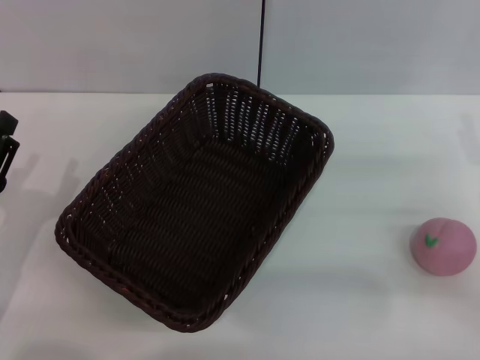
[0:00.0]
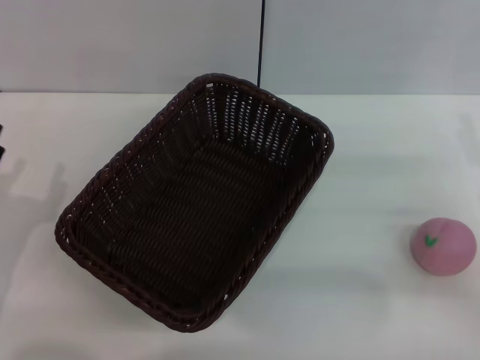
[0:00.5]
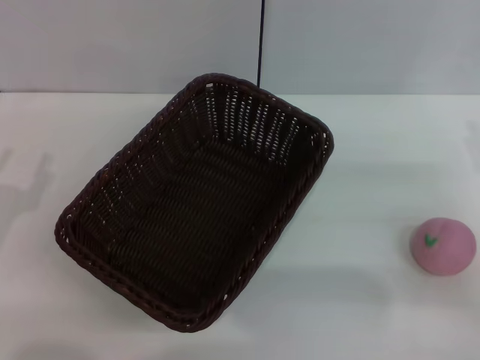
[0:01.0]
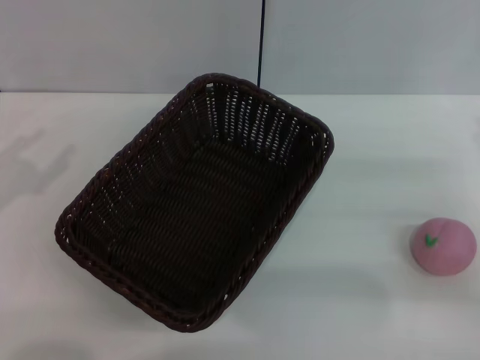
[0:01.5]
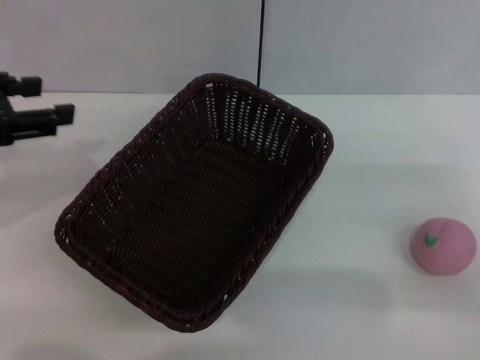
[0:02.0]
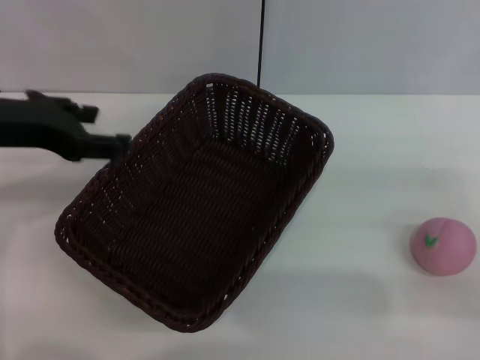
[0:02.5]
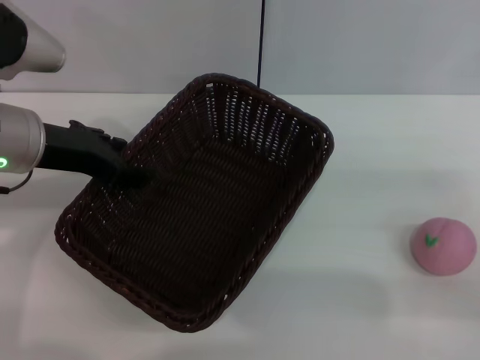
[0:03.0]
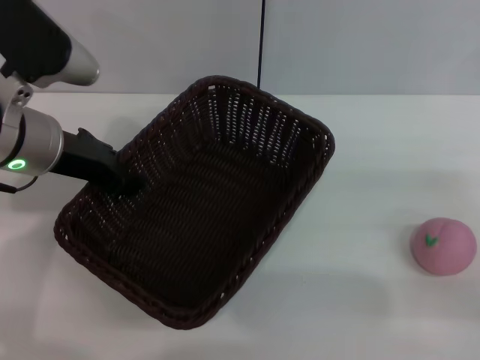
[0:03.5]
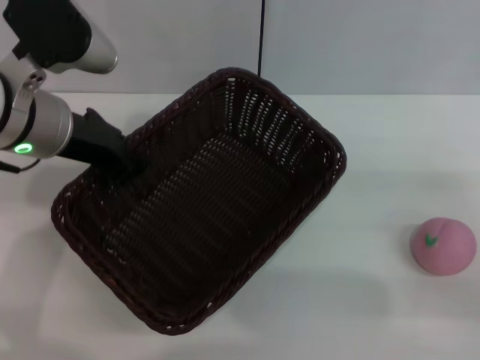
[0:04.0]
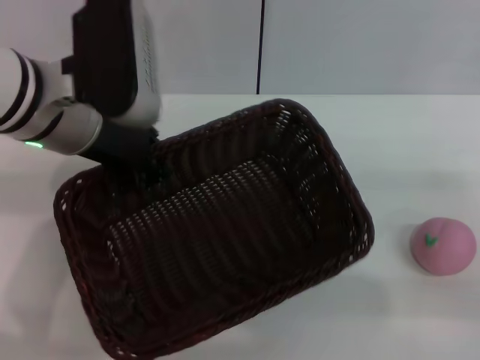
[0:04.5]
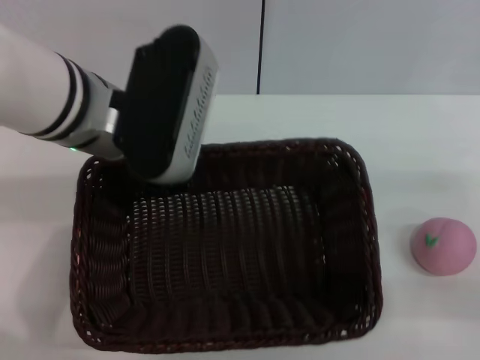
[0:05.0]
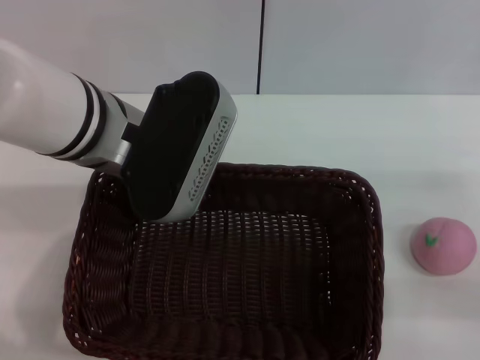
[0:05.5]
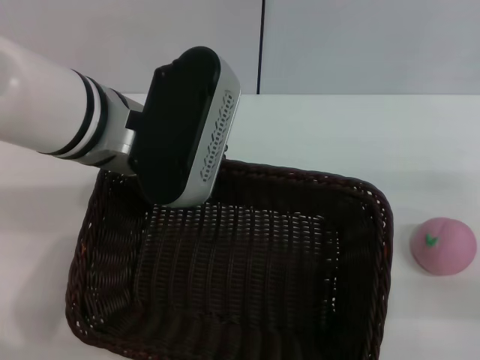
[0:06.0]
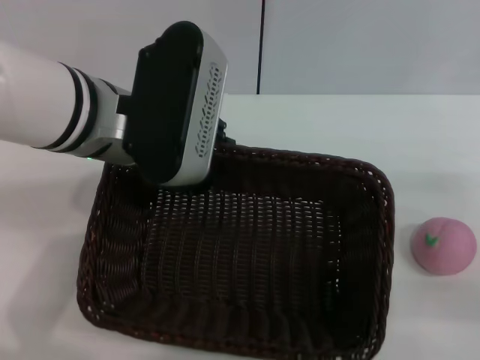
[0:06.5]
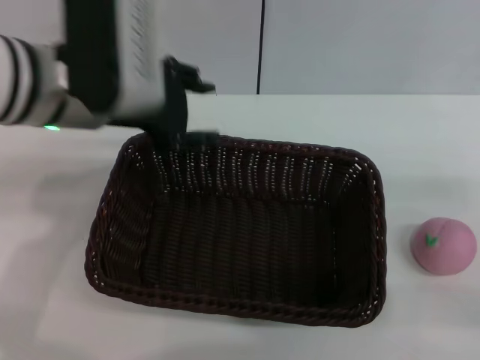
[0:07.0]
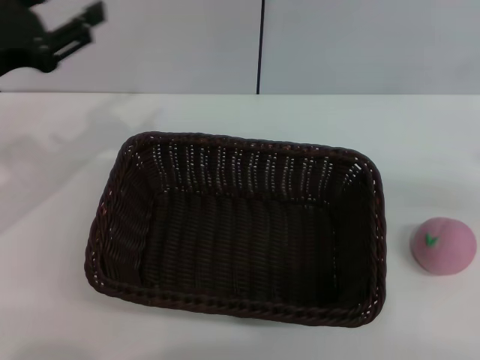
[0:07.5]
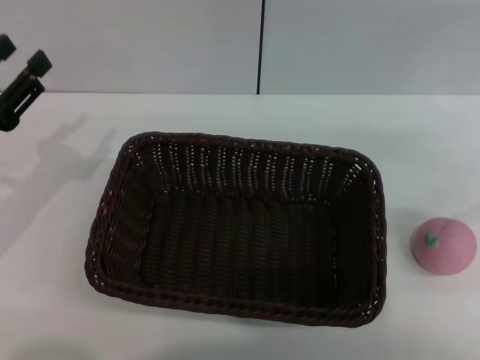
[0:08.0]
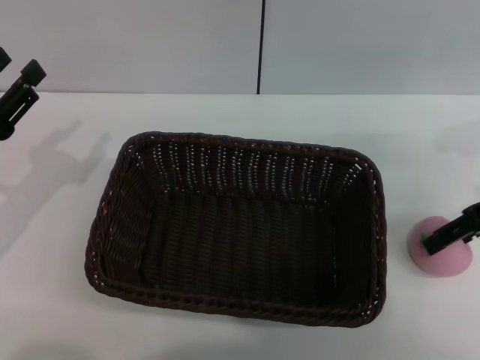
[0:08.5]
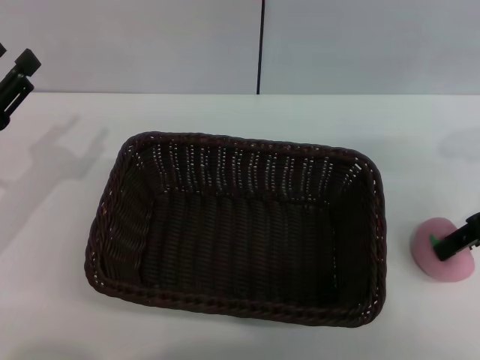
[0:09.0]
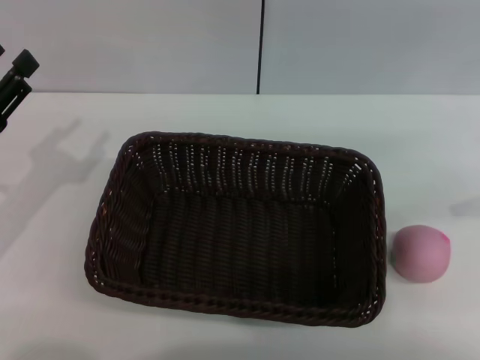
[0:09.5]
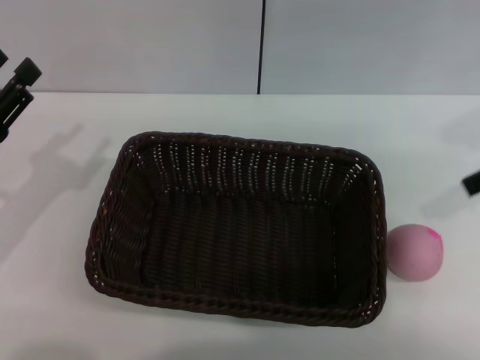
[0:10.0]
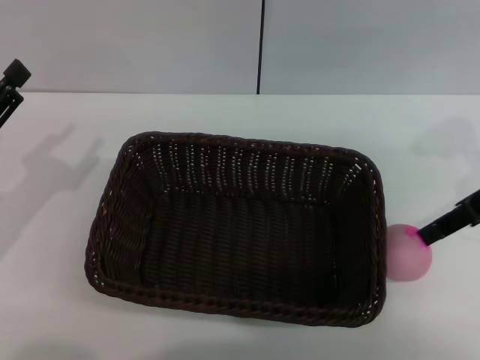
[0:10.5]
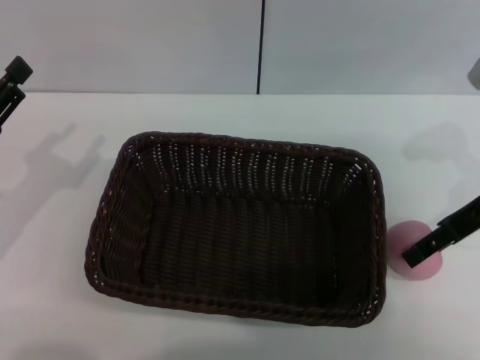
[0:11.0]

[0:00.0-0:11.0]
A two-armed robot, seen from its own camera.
Step, 0:00.0 to 0:04.0: Pick up the dark basket with the left gripper.
0:00.0 to 0:02.0: The left gripper shifts approximately 20 cm upward and forward.
0:02.0 to 0:03.5: The left gripper is displaced to the right, downward and forward by some 15 cm, and closes.
0:03.5 to 0:05.5: The left gripper is displaced to the right by roughly 10 cm, and closes.
0:05.5 to 0:07.5: The left gripper is displaced to the left by roughly 15 cm, and opens its fingers, while the right gripper goes some 15 cm upward and to the right.
0:07.5 to 0:09.0: The right gripper shifts about 15 cm to the left and forward. Meanwhile the left gripper shifts roughly 5 cm downward.
0:09.0 to 0:11.0: The right gripper moves roughly 10 cm upward and comes back, and closes, then reopens.

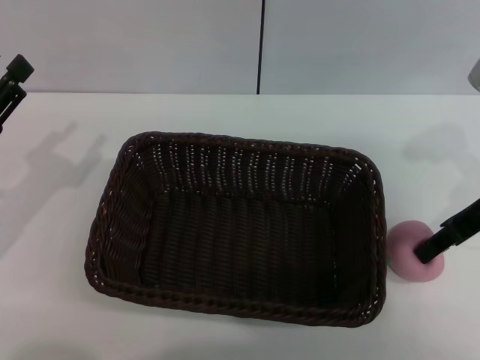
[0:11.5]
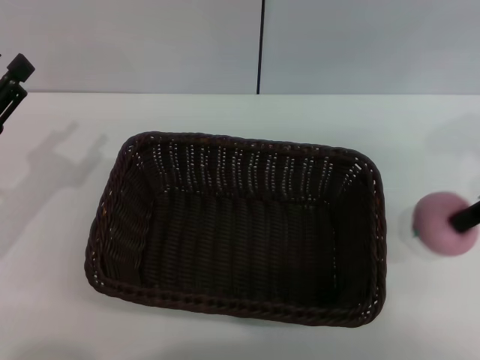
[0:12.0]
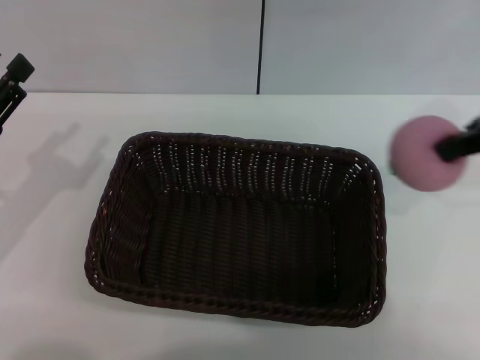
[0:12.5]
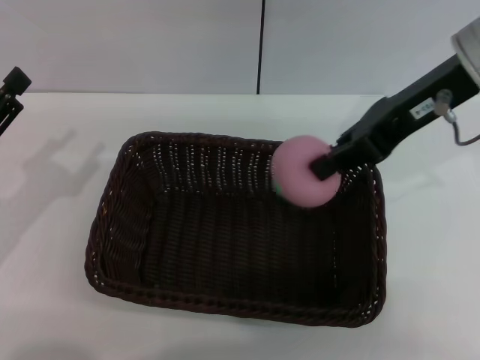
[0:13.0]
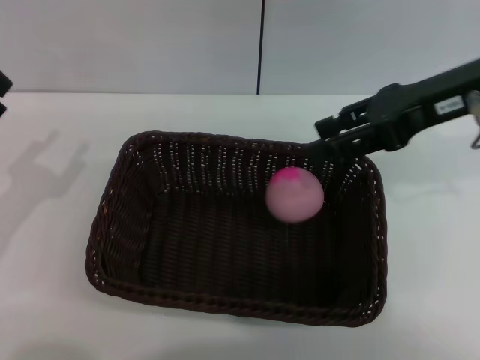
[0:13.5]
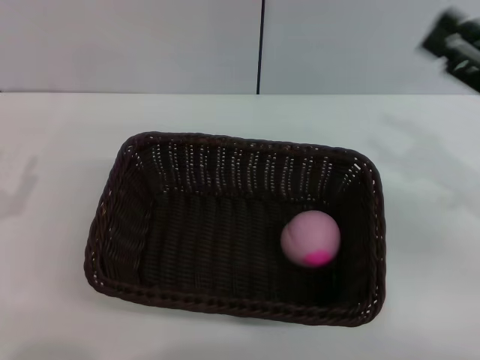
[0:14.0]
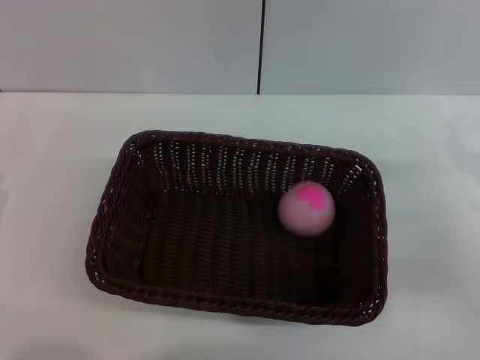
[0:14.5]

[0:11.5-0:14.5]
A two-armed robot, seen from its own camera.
0:11.5 to 0:13.0: The right gripper is displaced upward and to the left by approximately 10 cm, and closes up.
0:13.0 to 0:14.5: The right gripper is displaced downward, to the right and backward by some 25 cm, and opens its fingers. Meanwhile the left gripper is displaced backward and downward by some 10 cm.

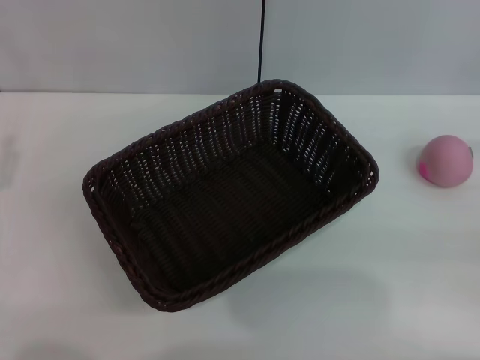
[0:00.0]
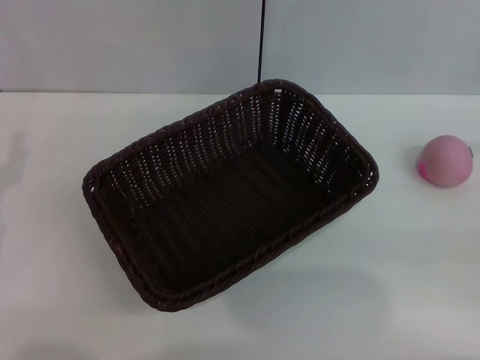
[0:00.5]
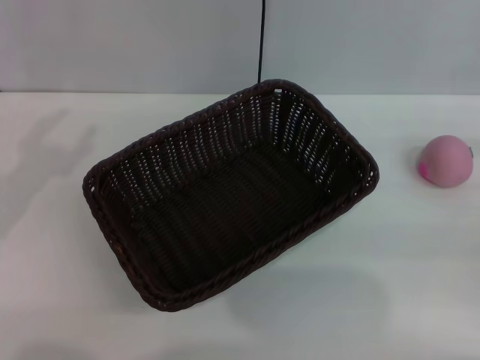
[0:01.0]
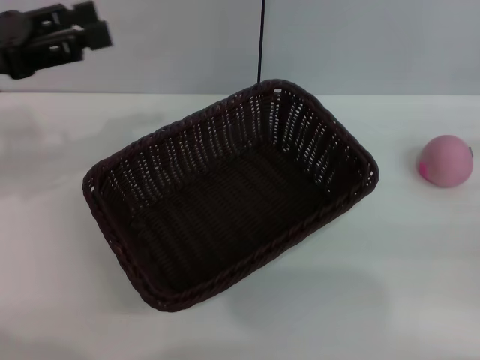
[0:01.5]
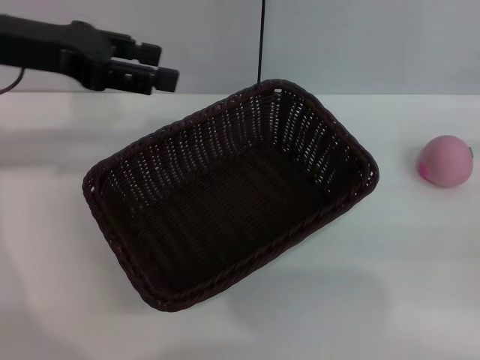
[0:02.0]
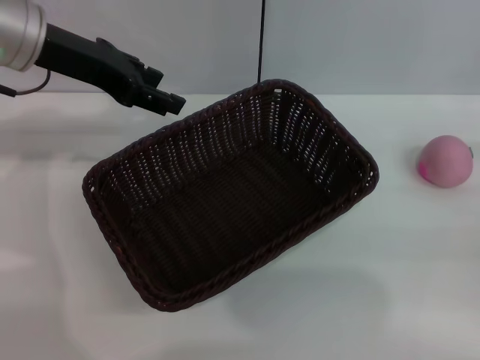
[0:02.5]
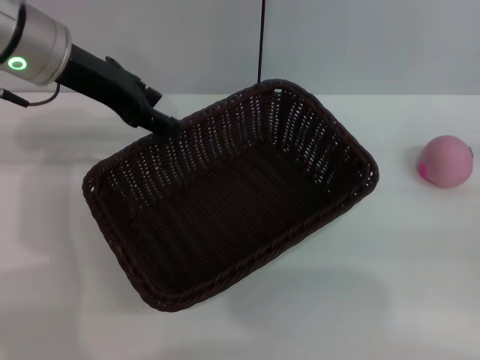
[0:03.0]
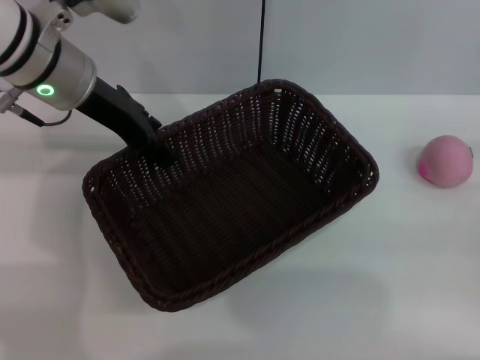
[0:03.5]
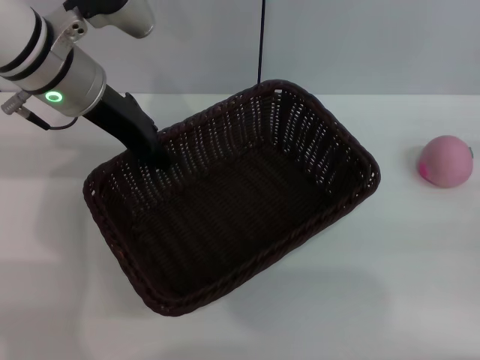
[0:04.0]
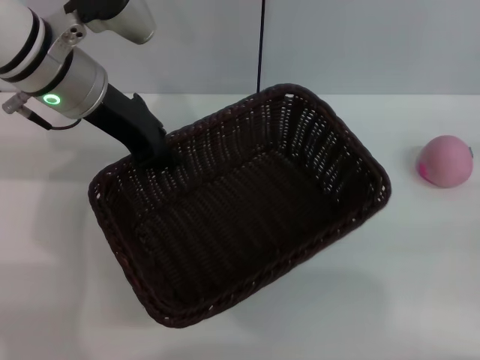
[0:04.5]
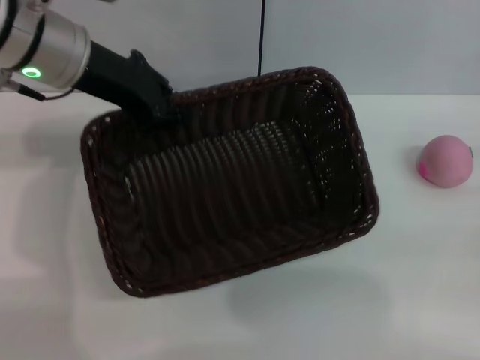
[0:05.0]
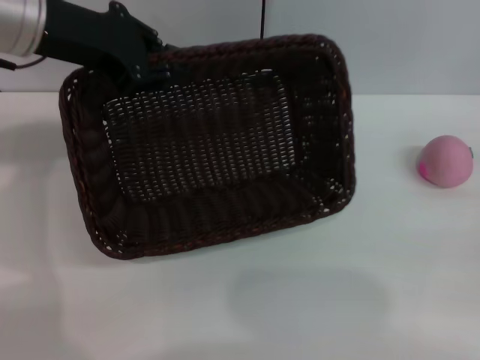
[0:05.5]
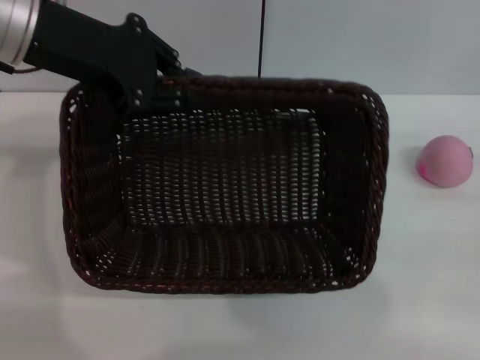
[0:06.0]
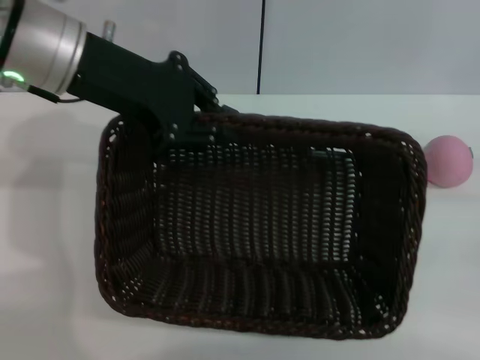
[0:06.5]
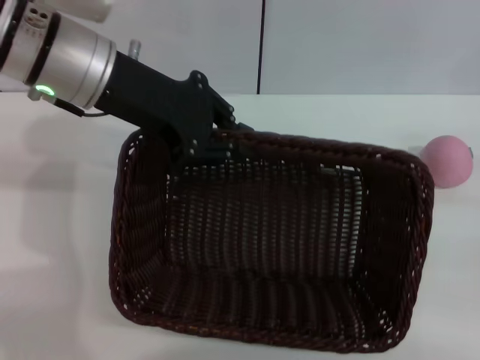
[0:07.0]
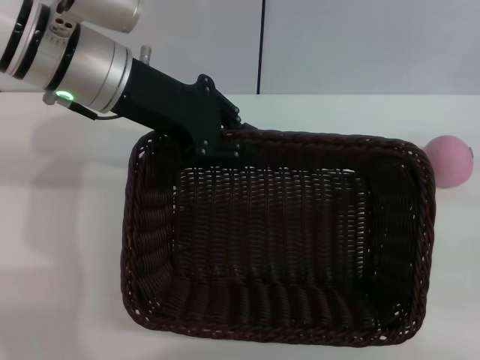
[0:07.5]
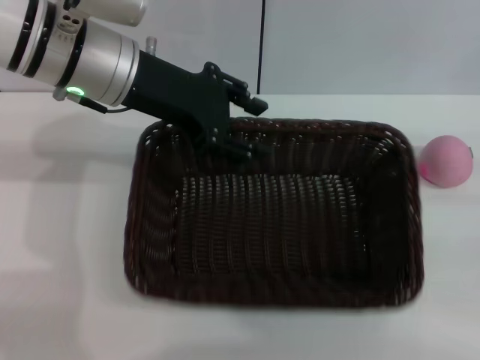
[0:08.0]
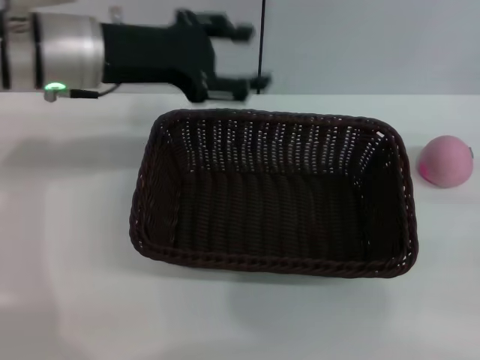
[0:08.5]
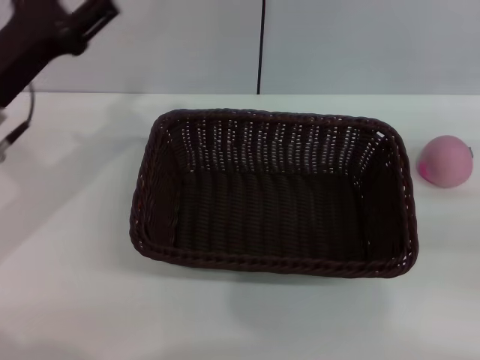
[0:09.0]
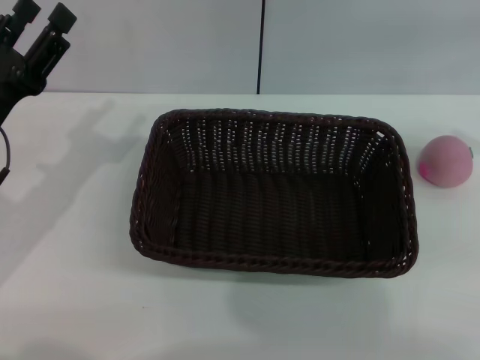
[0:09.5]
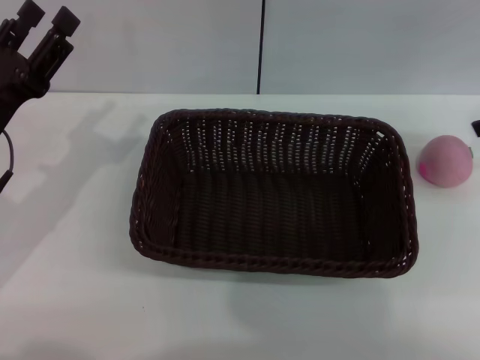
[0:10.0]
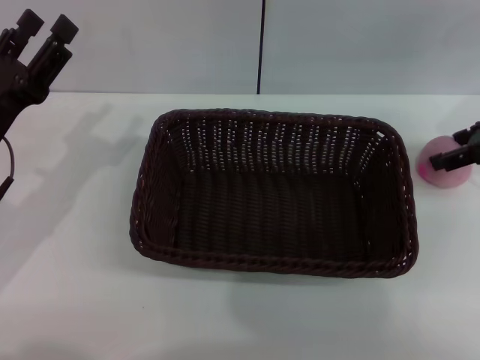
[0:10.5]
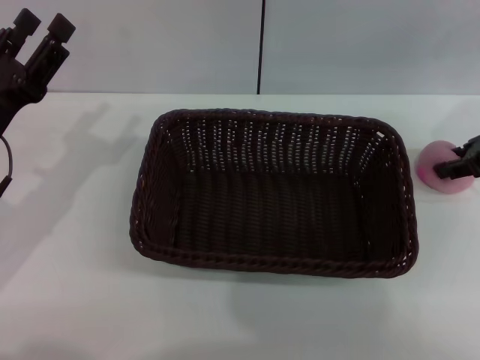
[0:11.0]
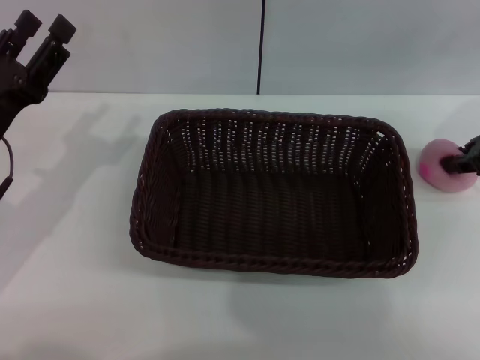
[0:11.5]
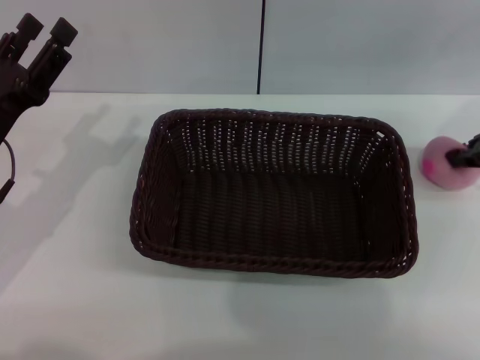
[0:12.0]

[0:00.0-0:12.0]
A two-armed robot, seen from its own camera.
Step, 0:00.0 to 0:04.5: Pick up the dark basket with the left gripper.
0:00.0 to 0:02.0: The left gripper shifts approximately 25 cm upward, forward and to the right.
0:02.0 to 0:04.0: The left gripper goes roughly 10 cm to the right and downward, and closes.
0:04.0 to 0:06.0: The left gripper heads upward, covering approximately 10 cm, and closes its fingers.
0:06.0 to 0:08.0: The left gripper shifts approximately 10 cm downward and to the right.
0:08.0 to 0:10.0: The left gripper moves to the left, downward and backward, approximately 20 cm, and opens up. Meanwhile the right gripper is displaced upward and forward by about 20 cm.
0:10.0 to 0:12.0: The right gripper shifts by approximately 5 cm, and closes.
